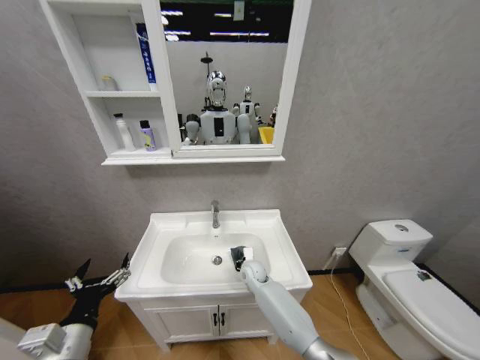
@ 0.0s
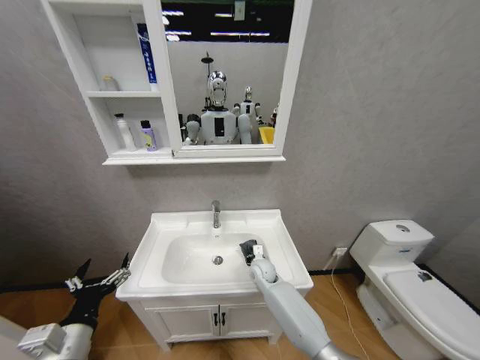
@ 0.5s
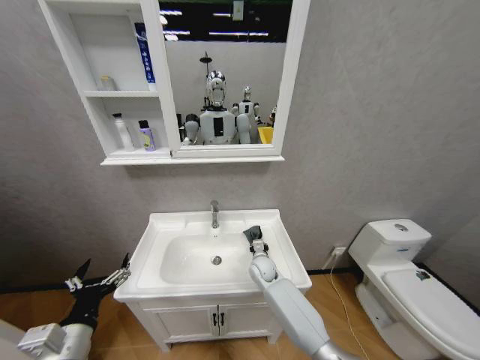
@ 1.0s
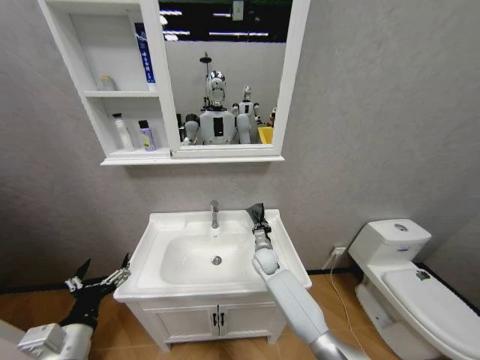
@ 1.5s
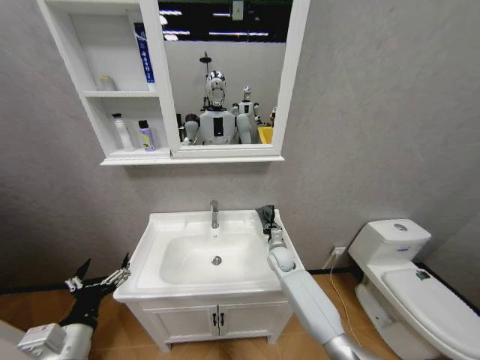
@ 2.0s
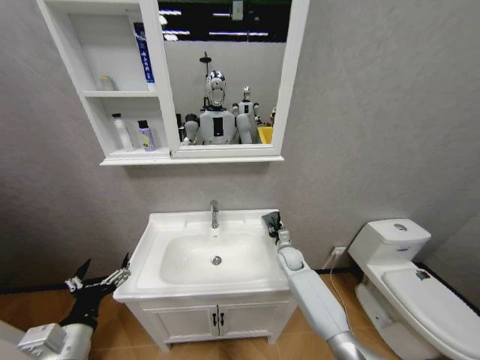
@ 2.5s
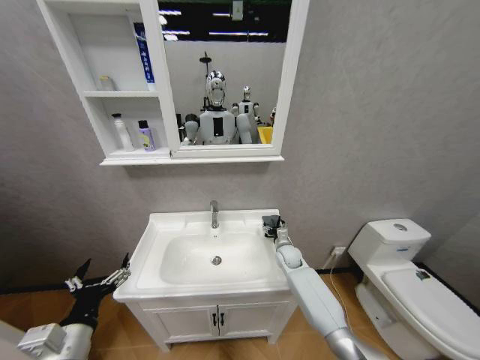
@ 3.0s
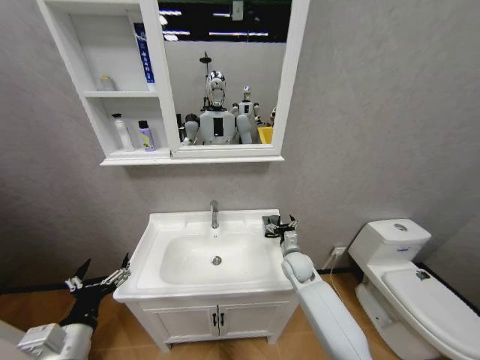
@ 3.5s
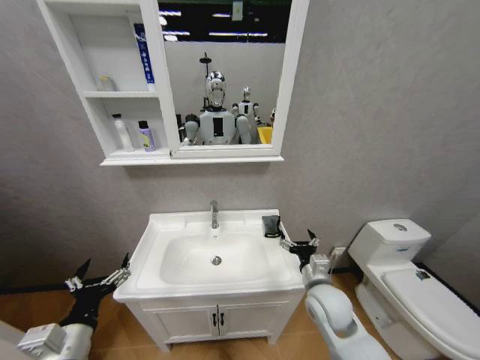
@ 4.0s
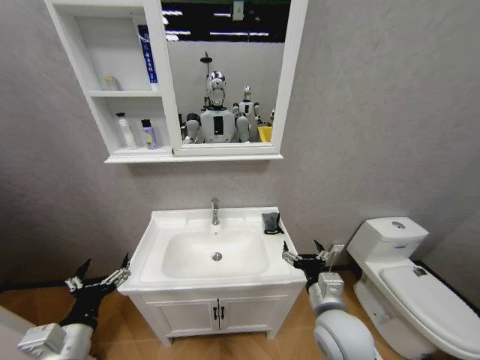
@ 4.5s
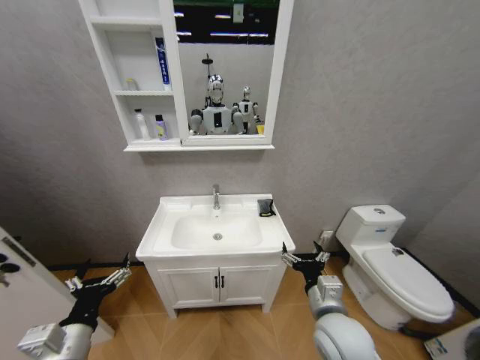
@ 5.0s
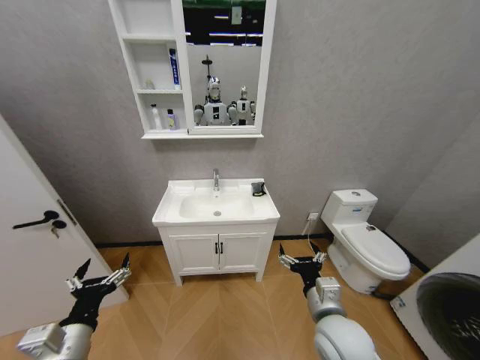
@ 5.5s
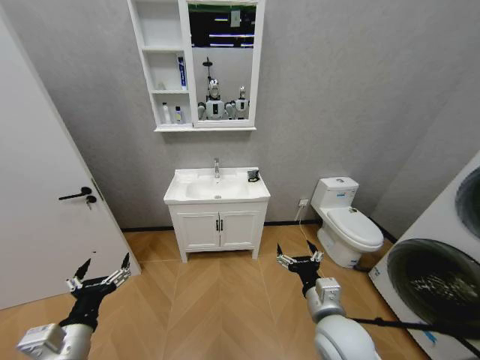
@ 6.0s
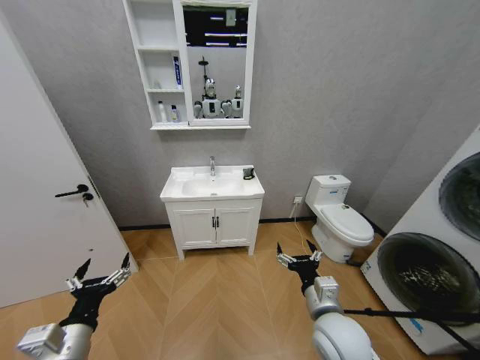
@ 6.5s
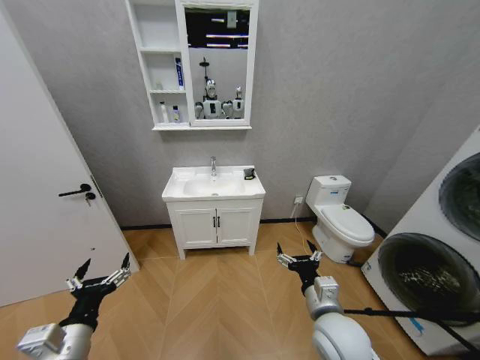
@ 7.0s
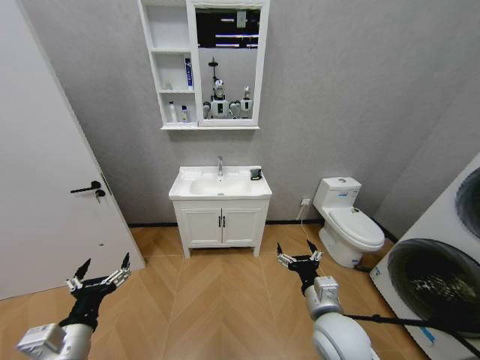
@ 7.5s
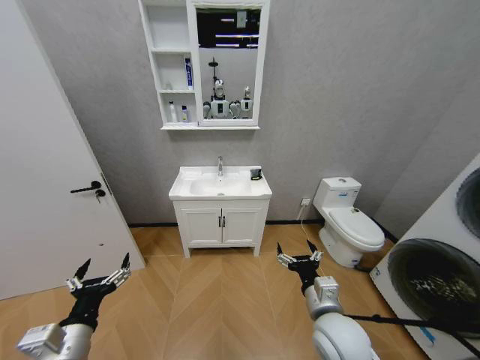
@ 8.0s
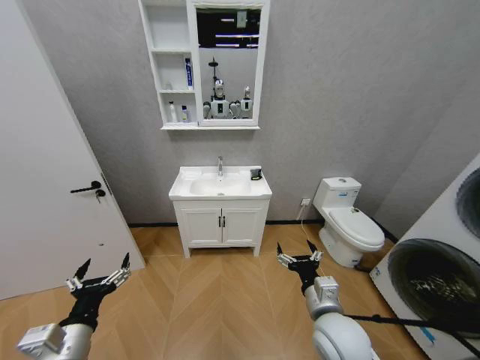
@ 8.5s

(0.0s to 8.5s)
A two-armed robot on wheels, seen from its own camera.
Task of the whole recording: Move facial cleanser and shampoo from washbasin to cabinet, then wipe washbasin with towel.
0.0s - 2.0s: The right gripper moves to the right, roughly 10 cm.
2.0s - 4.0s: The right gripper goes approximately 20 cm backward and upward, and opens its fingers.
4.0s - 6.5s: The right gripper moves backward, approximately 5 cm.
6.5s - 8.5s: Neither gripper changes place.

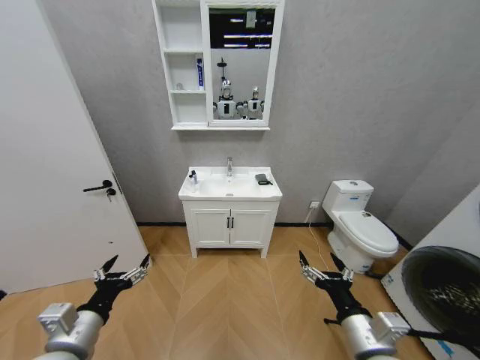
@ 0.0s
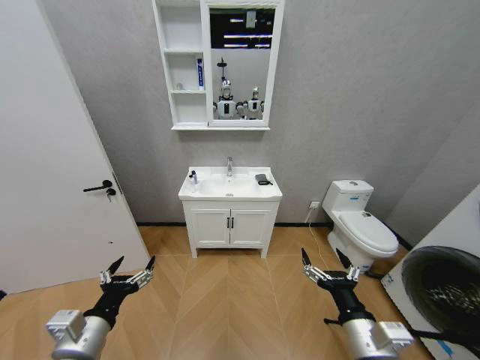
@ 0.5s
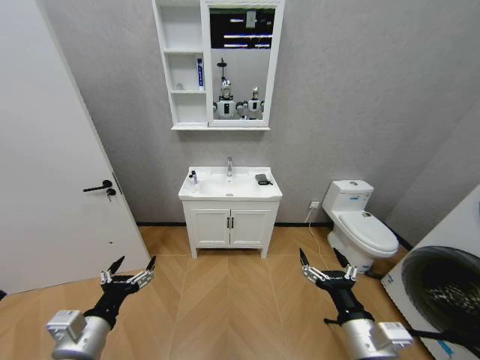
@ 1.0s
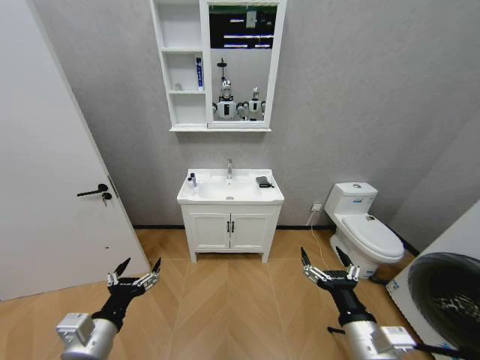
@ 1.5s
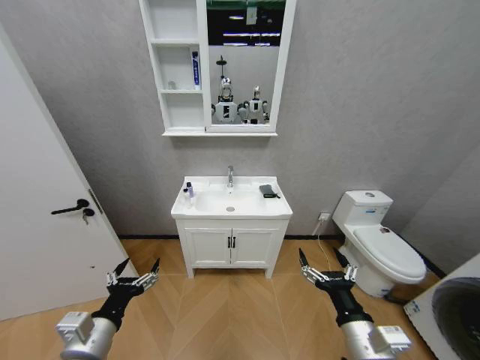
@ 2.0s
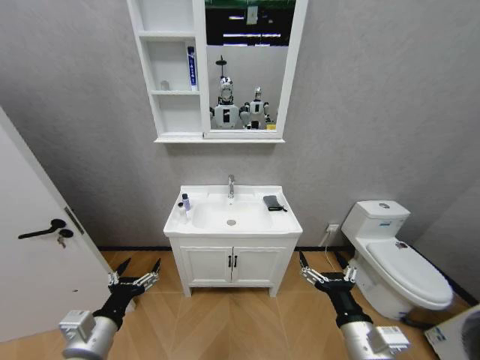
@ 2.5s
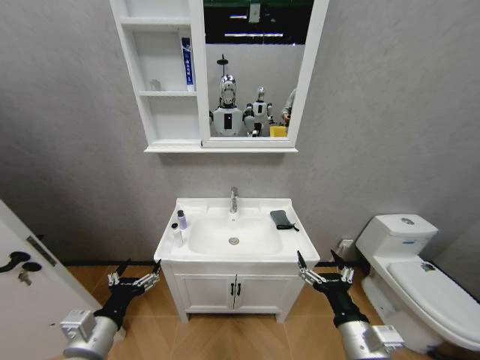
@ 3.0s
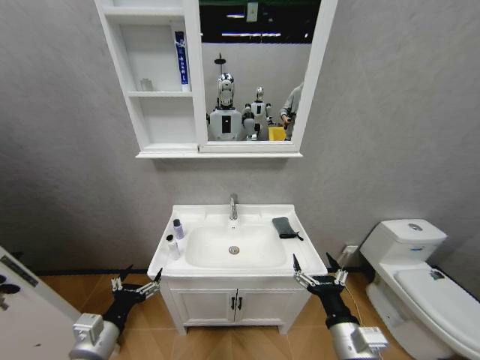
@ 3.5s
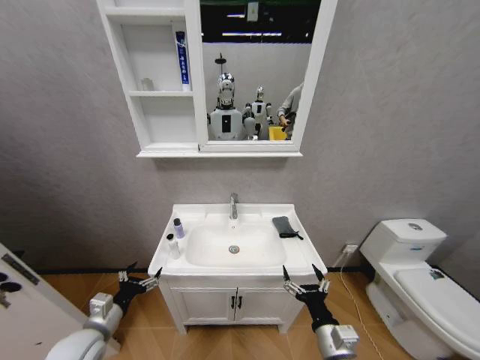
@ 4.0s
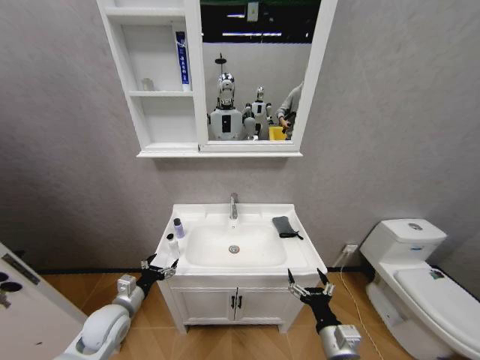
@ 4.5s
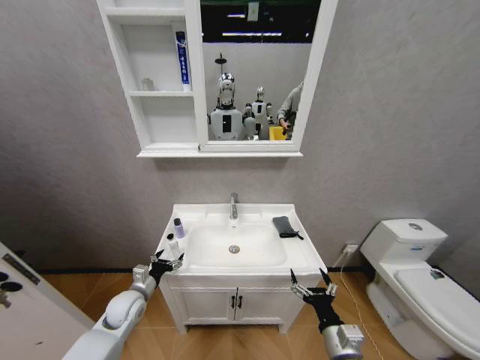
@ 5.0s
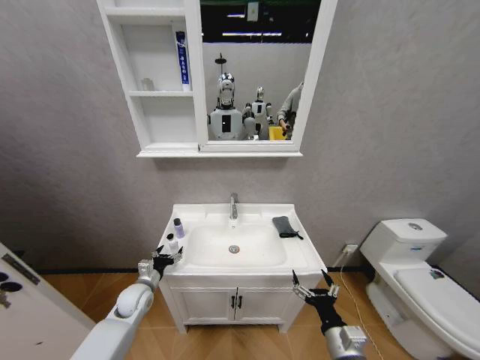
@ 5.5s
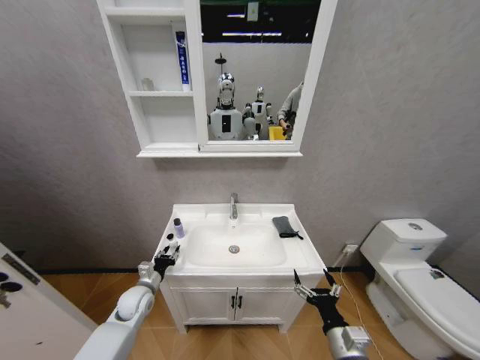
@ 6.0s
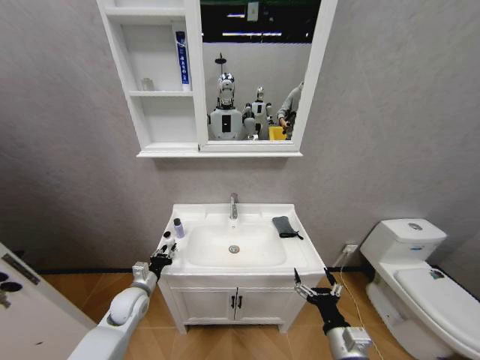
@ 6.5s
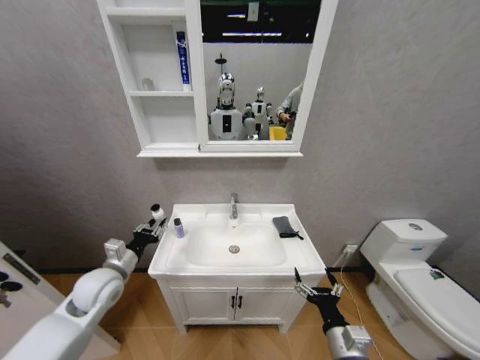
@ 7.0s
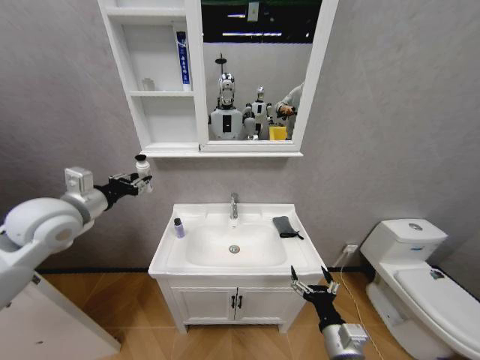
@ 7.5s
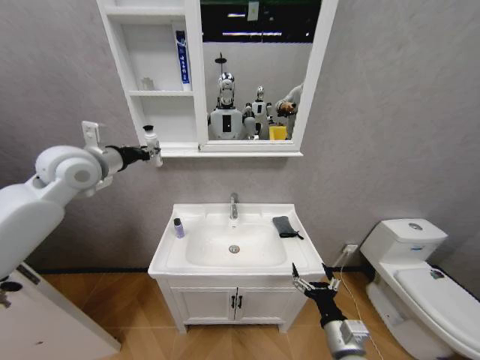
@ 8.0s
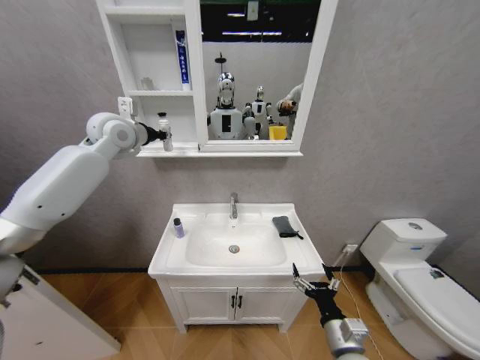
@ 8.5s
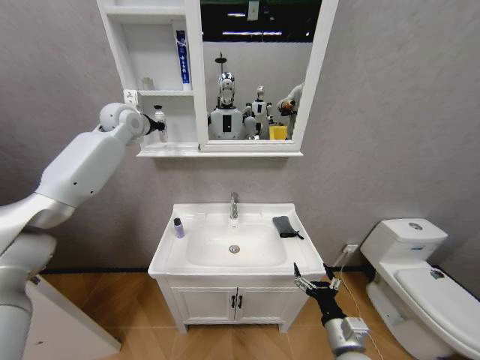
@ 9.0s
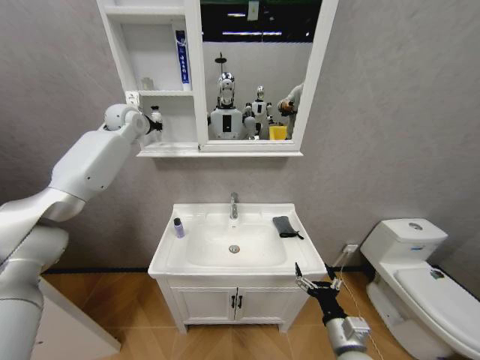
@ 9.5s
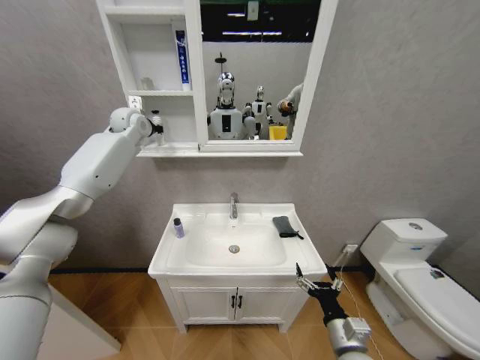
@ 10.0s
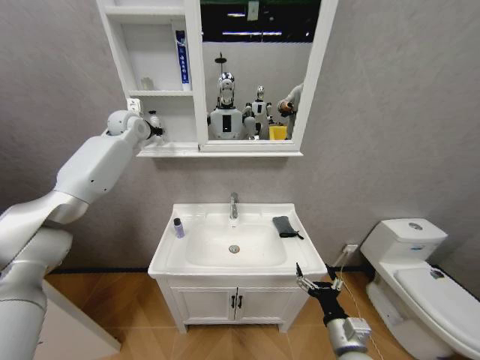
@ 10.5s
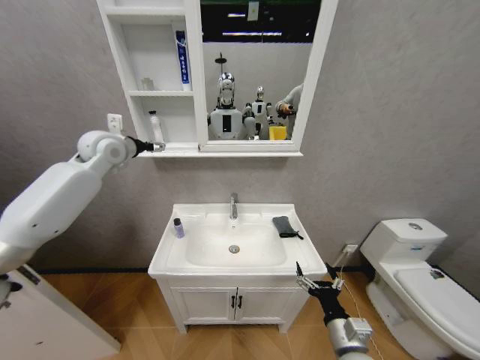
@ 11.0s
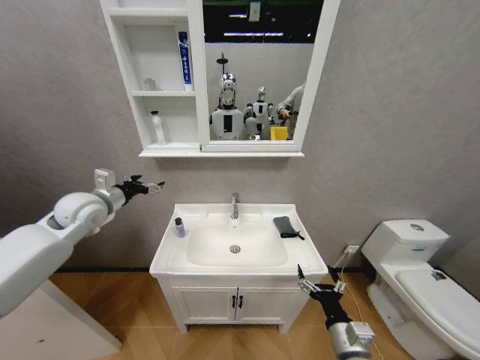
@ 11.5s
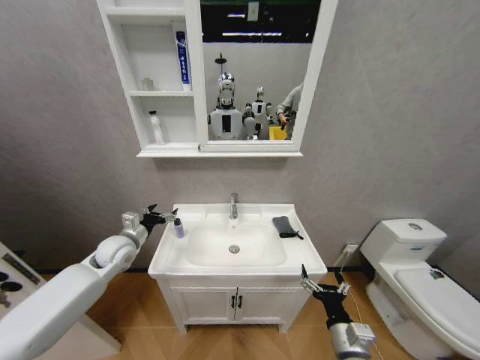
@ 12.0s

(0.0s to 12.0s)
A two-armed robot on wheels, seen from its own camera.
Task of the whole recording: Move facial cleanser and shampoo from washbasin to cabinet, then wipe washbasin with towel.
2.0s - 4.0s: The left gripper travels downward, forward and to the left by about 15 cm. Meanwhile the right gripper goes about 10 cm downward.
4.0s - 6.0s: The left gripper goes roughly 15 cm forward and downward, and closes.
6.0s - 8.0s: The left gripper is displaced upward by roughly 40 cm.
8.0s - 10.0s: The left gripper shifts about 20 cm forward.
10.0s - 12.0s: The left gripper heads downward and backward, covering approximately 40 cm, and opens up.

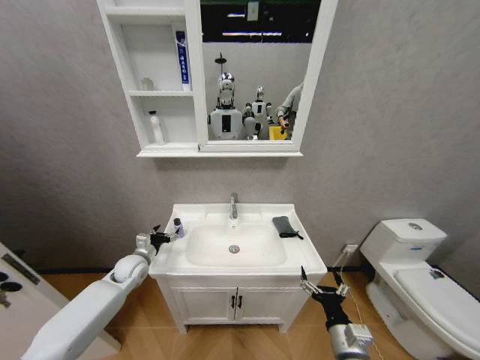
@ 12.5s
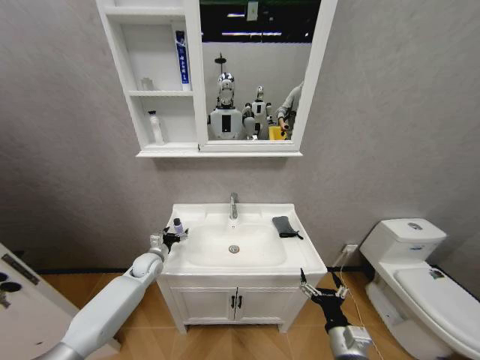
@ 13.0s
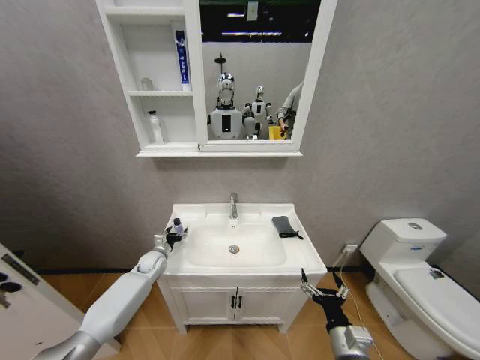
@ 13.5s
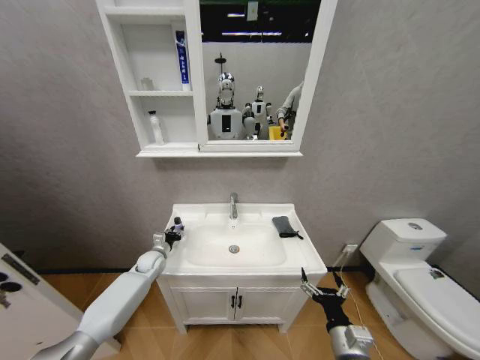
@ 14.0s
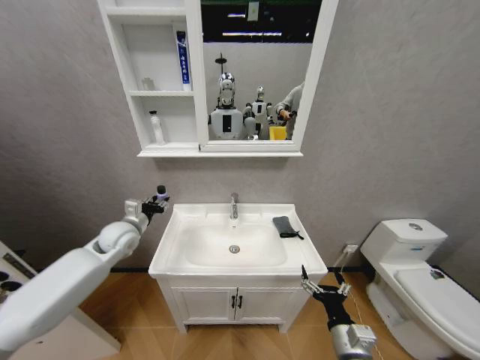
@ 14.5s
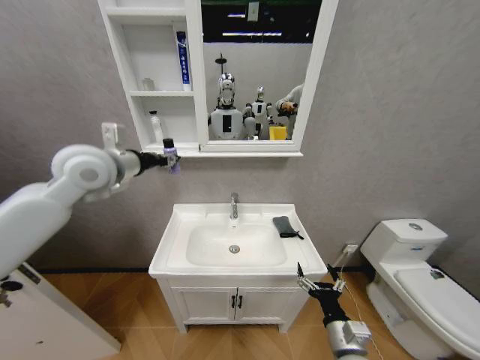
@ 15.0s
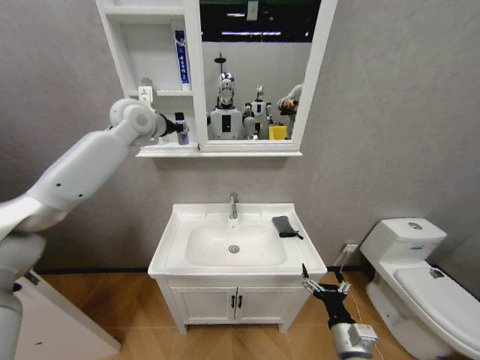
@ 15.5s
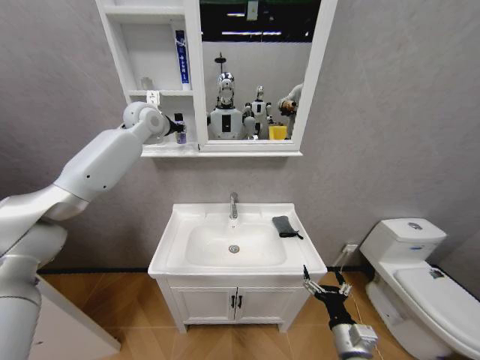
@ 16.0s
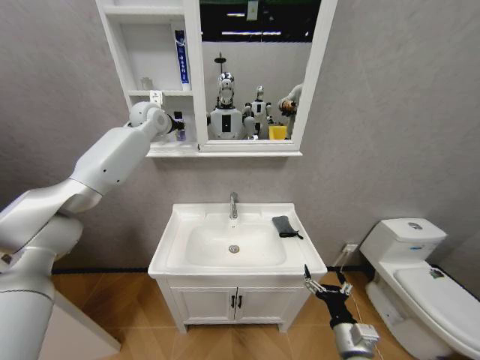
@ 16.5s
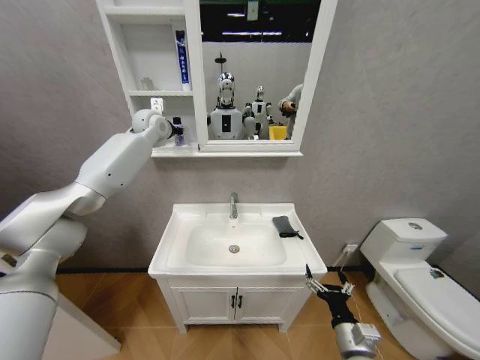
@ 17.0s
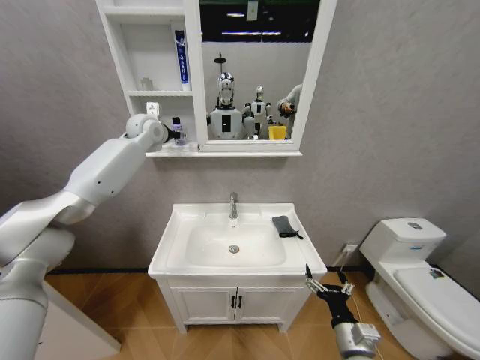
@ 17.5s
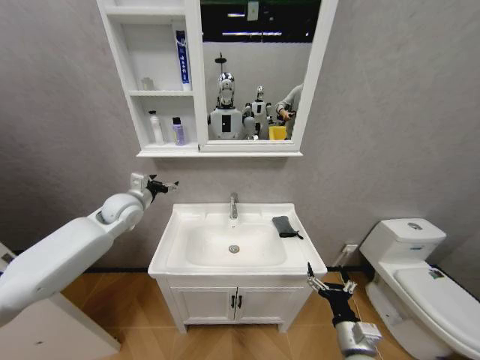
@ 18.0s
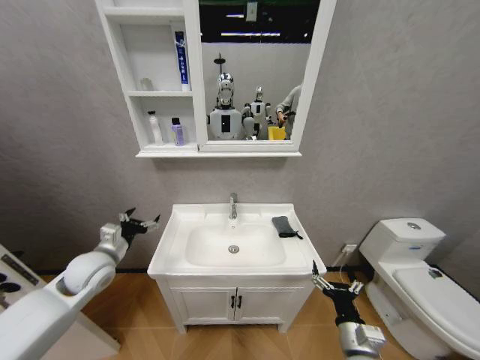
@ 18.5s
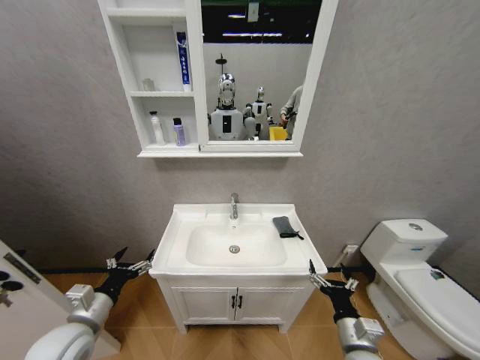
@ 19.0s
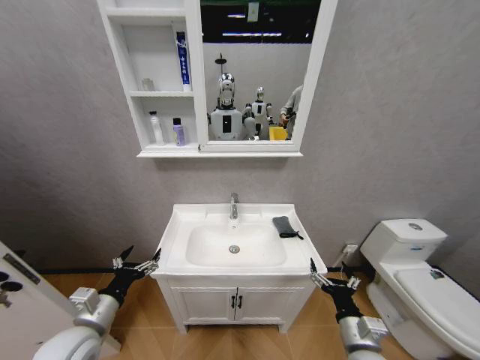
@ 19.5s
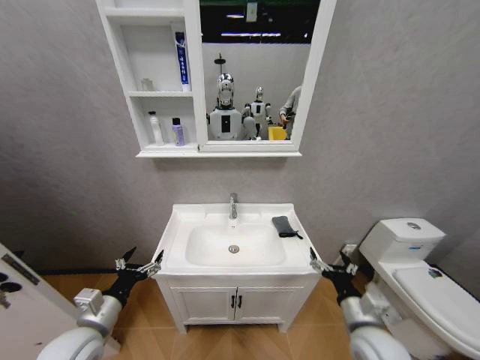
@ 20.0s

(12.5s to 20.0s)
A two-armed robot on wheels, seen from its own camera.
Task of the whole recording: Move facial cleanser and shampoo from washbasin to cabinet, then wipe washbasin with towel.
12.5s - 14.5s: The left gripper travels upward by about 5 cm, and closes up.
14.5s - 16.5s: The left gripper travels upward and forward by approximately 40 cm.
16.5s - 18.0s: The left gripper moves downward and backward, about 25 cm, and opens.
18.0s - 20.0s: The right gripper is displaced upward and forward by roughly 10 cm. Meanwhile the left gripper moves backward and downward, about 30 cm.
